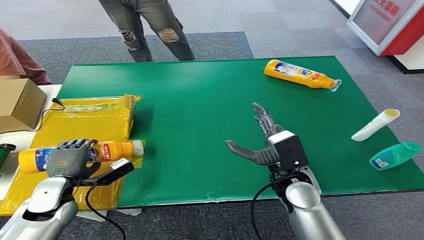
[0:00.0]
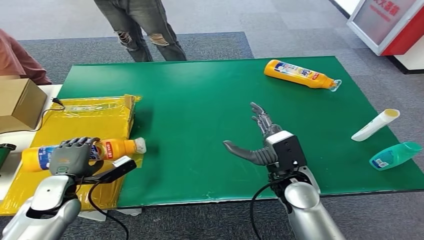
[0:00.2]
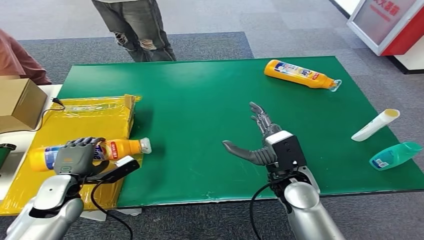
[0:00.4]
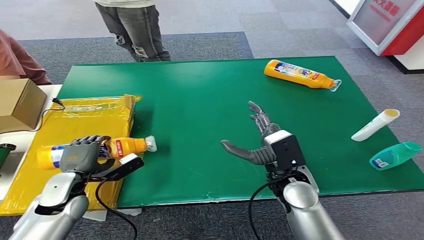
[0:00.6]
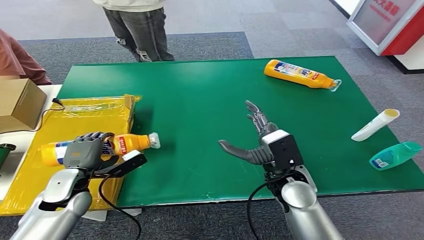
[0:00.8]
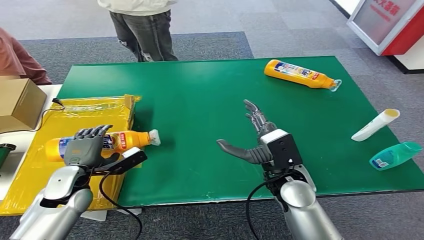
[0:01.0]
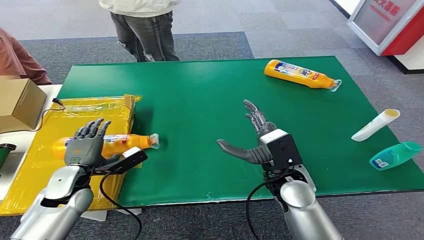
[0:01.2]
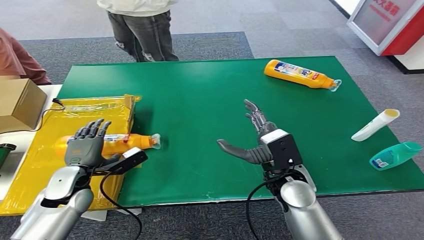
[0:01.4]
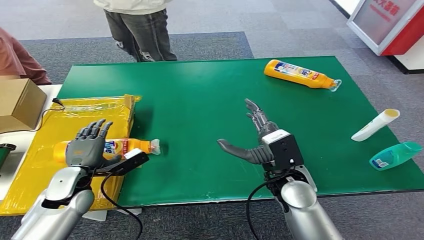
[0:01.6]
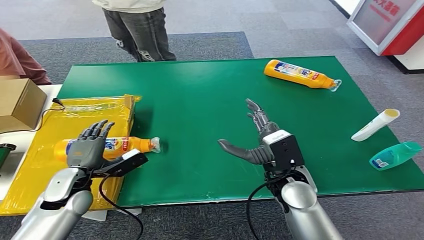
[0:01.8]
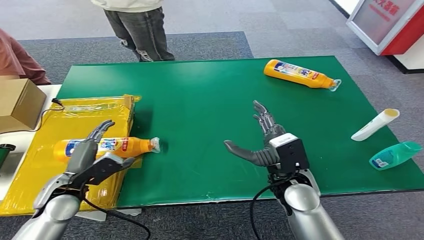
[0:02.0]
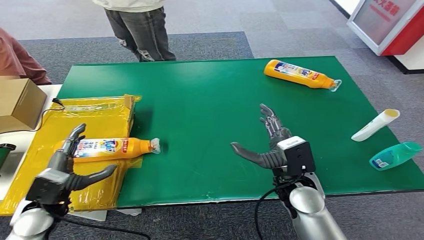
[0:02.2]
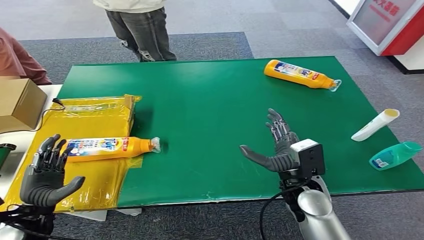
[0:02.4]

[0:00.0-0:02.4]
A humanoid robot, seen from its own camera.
Step, 0:00.0 to 0:02.4: Turn the bottle to the front side.
0:00.0 to 0:01.2: The hands move only a little.
0:01.2 to 0:02.4: The left hand goes roughly 10 cm backward and to the left.

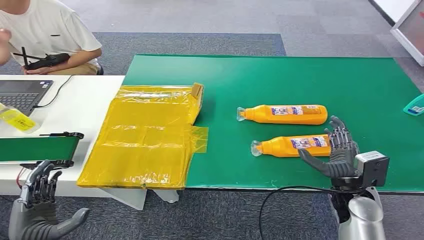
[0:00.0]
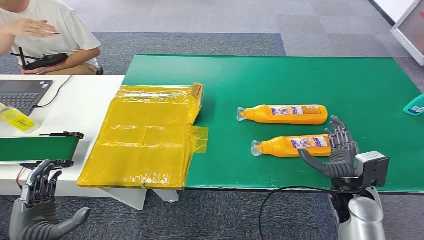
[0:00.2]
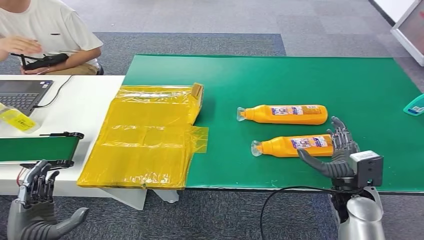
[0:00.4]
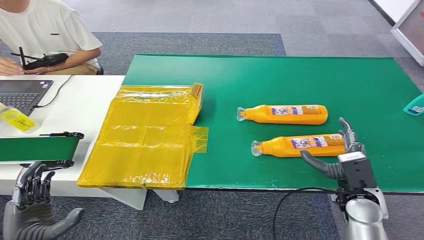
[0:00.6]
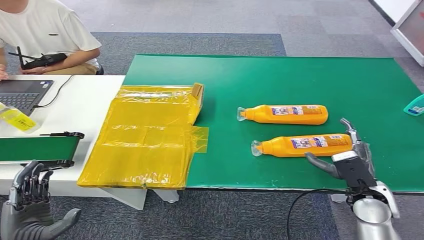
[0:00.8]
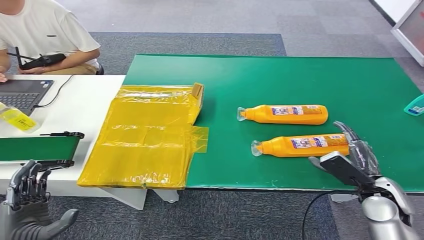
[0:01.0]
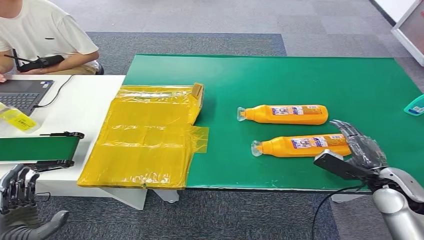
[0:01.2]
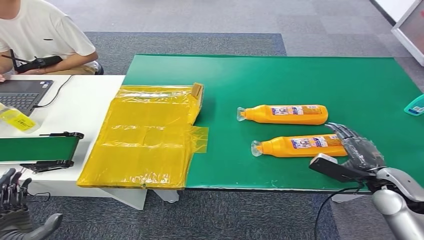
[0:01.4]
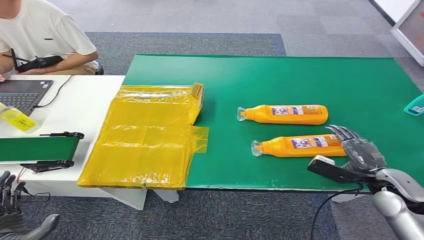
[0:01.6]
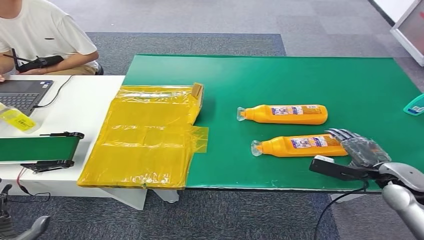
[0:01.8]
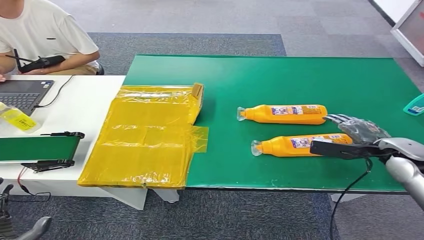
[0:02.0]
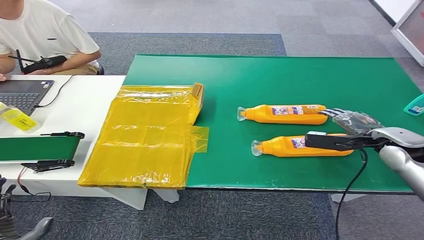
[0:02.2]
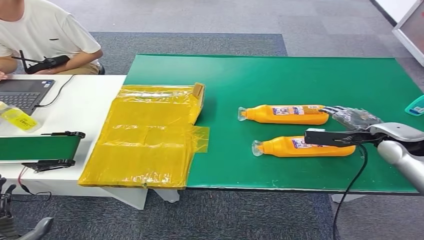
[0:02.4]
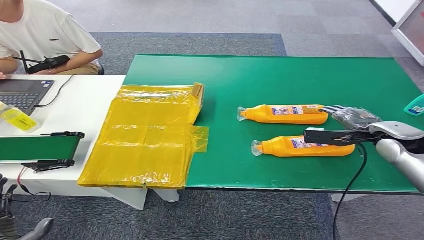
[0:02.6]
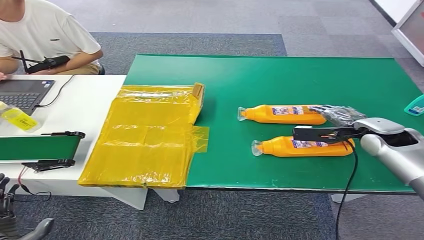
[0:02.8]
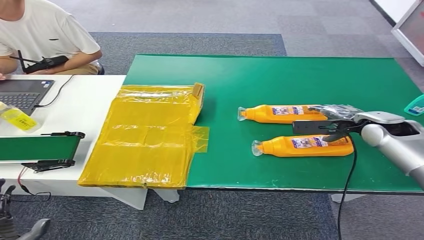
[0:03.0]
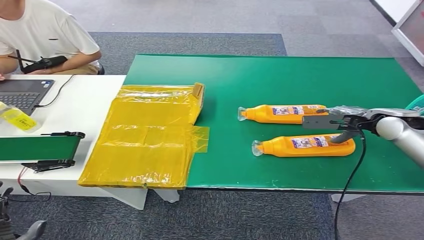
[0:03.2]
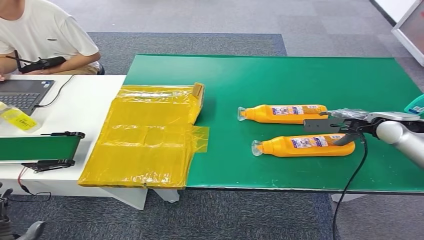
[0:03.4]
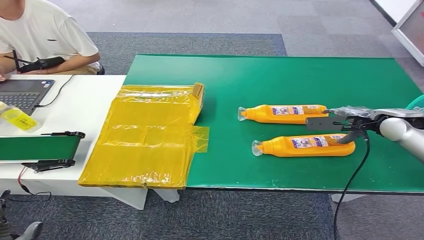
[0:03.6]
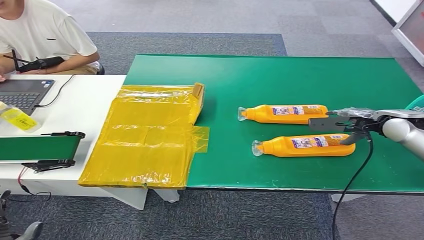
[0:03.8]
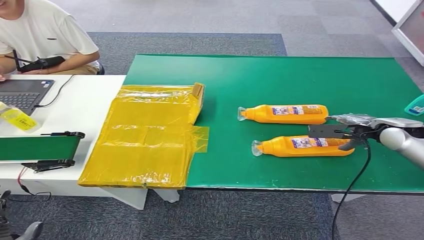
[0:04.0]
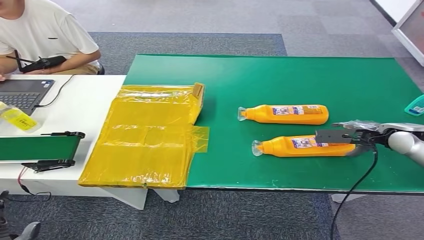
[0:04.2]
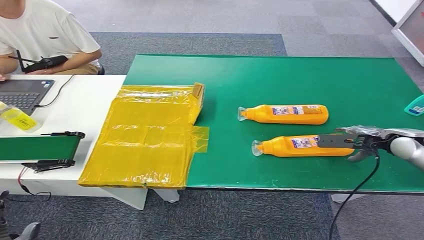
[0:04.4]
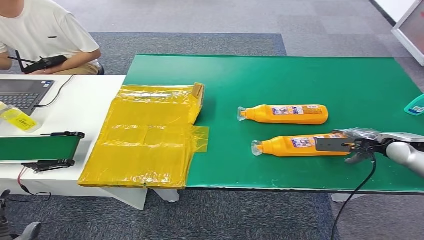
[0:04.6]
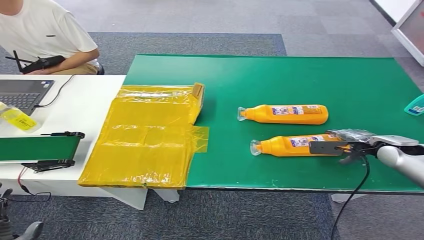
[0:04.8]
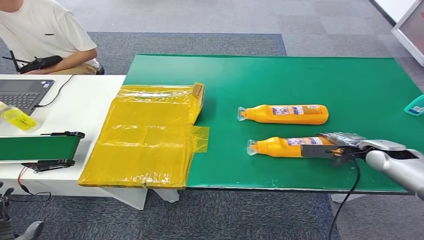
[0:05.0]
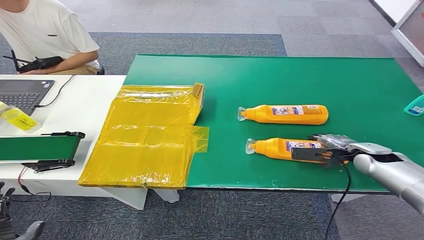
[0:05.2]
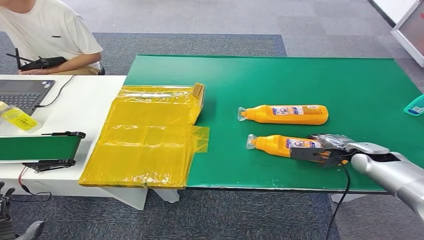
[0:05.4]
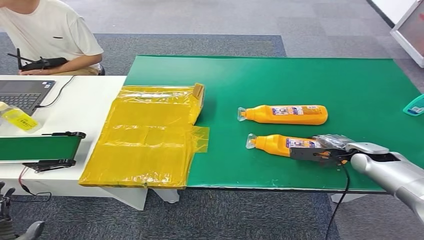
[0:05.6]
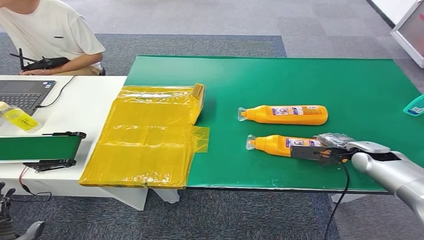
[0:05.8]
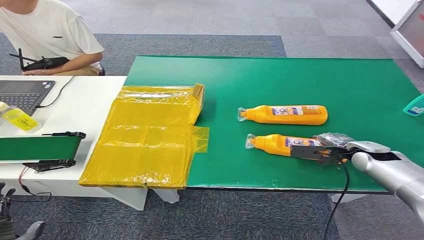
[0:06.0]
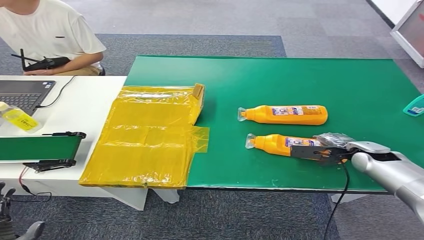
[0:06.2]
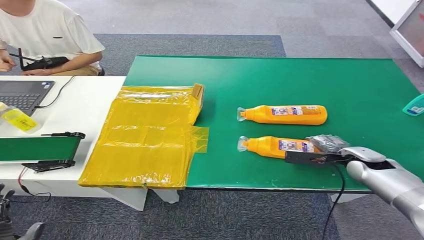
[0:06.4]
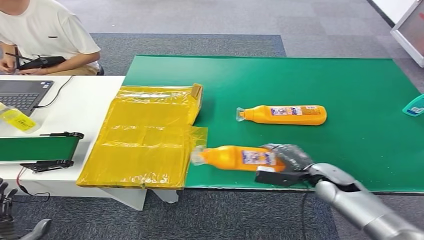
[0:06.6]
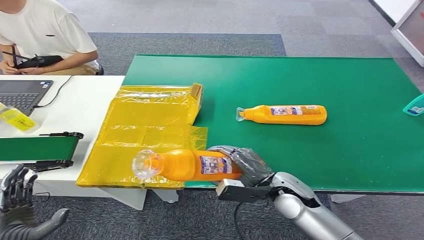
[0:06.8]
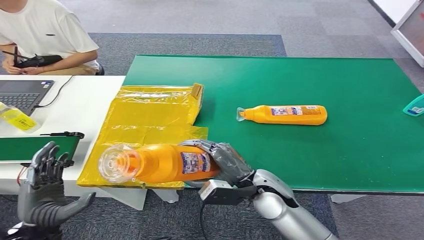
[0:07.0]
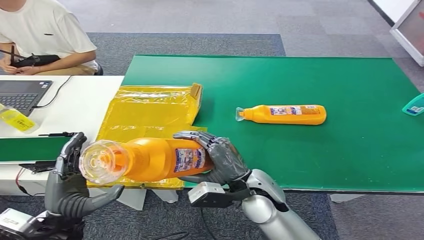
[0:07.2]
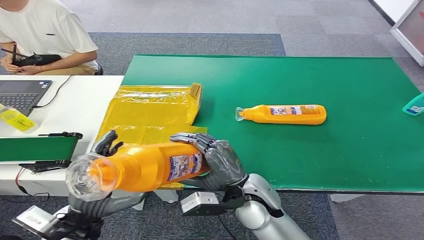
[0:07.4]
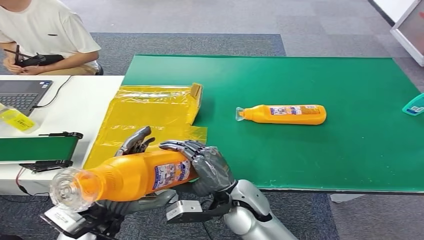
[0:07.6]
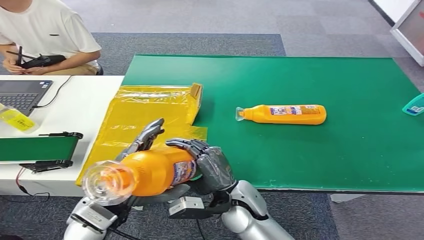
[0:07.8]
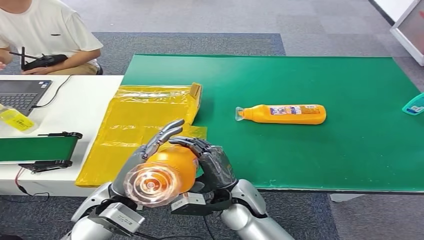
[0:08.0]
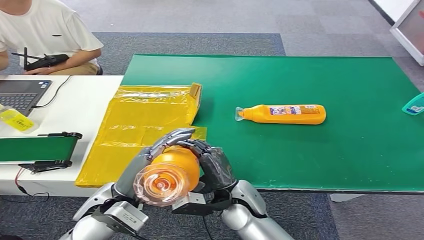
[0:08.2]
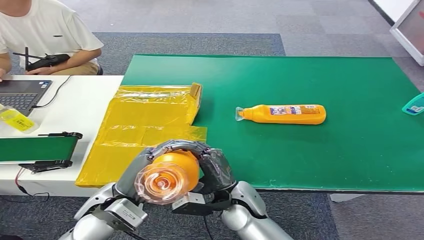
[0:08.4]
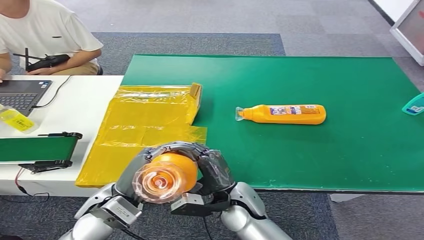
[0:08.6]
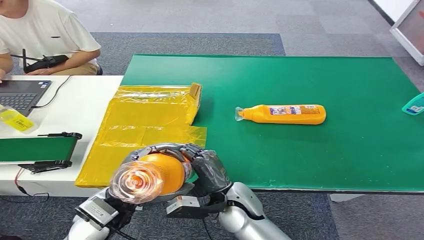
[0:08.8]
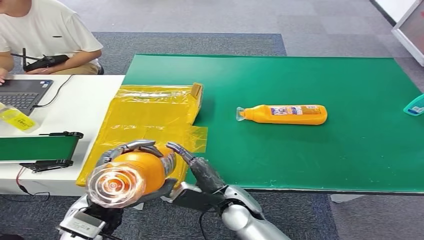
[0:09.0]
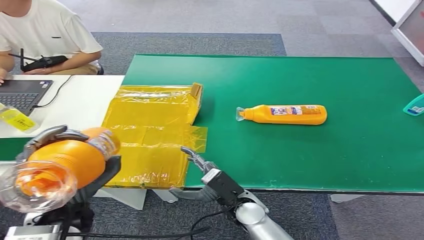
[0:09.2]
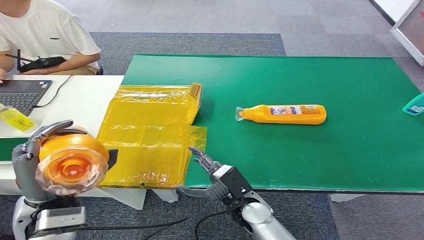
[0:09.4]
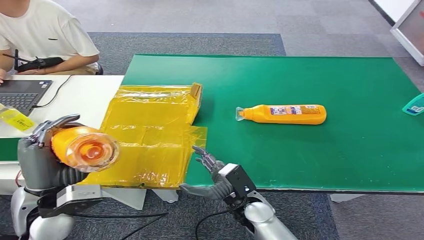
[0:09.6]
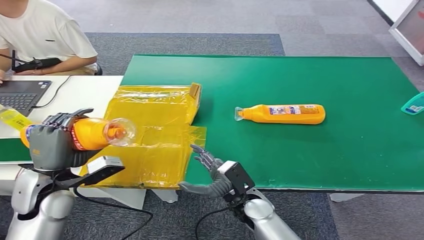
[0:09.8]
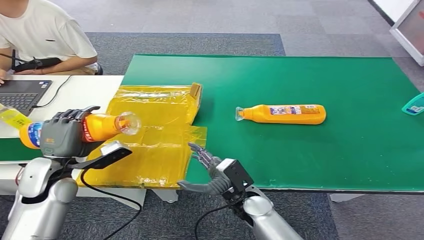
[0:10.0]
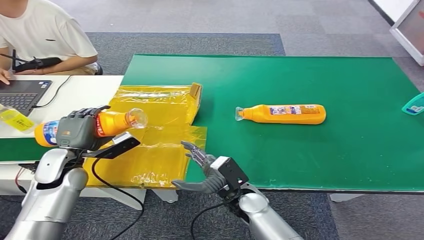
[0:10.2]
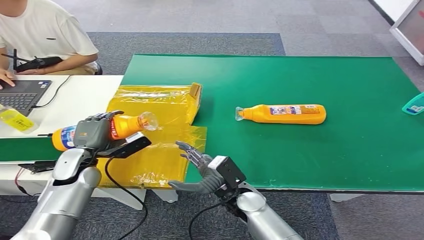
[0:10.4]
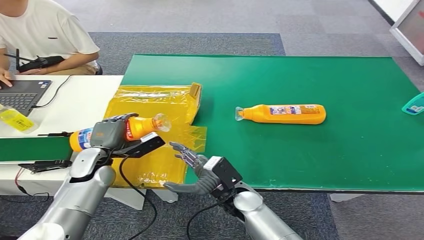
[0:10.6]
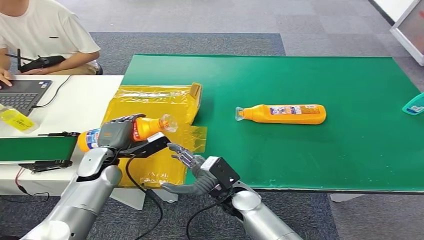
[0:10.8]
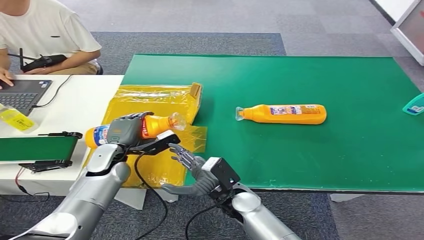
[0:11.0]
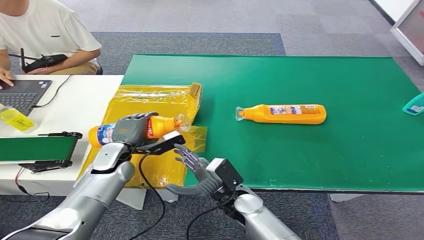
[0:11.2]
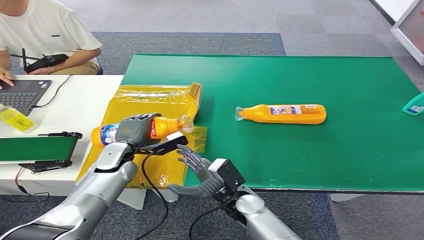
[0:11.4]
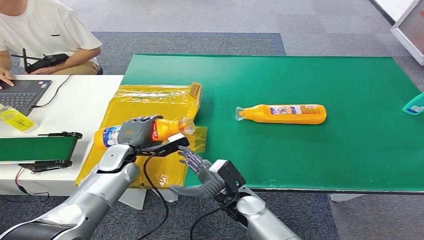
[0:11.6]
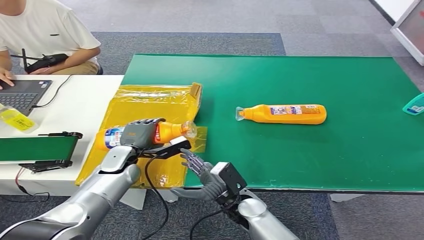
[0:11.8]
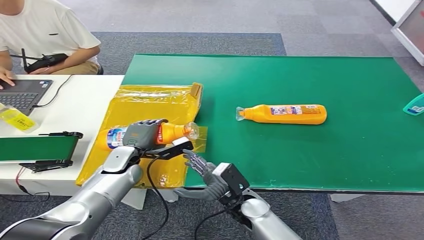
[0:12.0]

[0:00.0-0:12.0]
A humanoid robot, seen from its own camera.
Step, 0:00.0 to 0:07.0: Pick up the bottle from the table.
0:01.6 to 0:03.0: The right hand is displaced forward and upward by approximately 20 cm.
0:03.0 to 0:04.4: The right hand travels to the right by approximately 5 cm.
0:04.4 to 0:06.0: The right hand moves downward, some 10 cm.
0:07.6 to 0:09.0: The right hand changes place by about 5 cm.
0:10.4 to 0:12.0: The left hand heads to the right, covering approximately 10 cm.

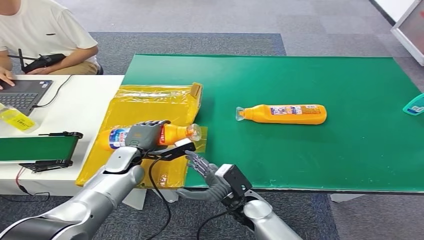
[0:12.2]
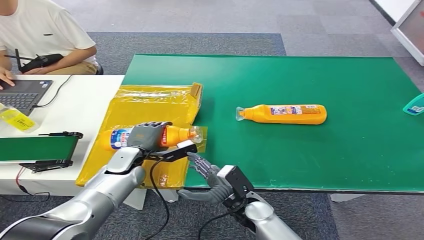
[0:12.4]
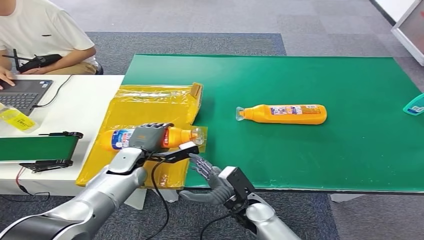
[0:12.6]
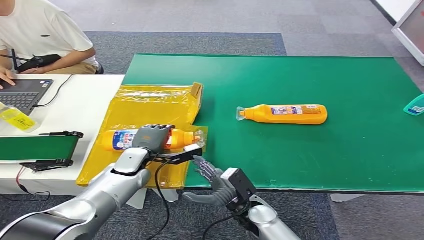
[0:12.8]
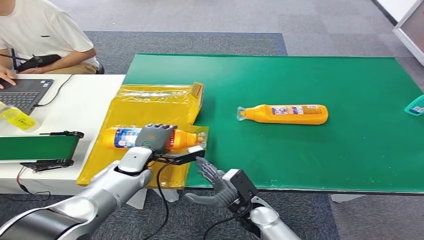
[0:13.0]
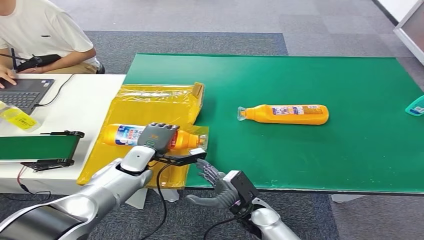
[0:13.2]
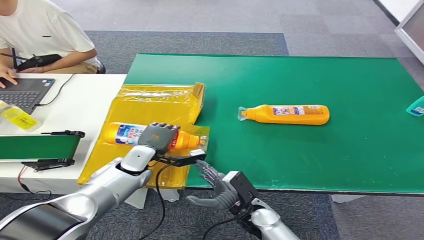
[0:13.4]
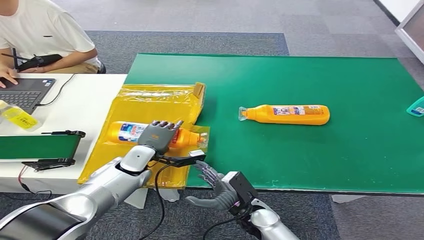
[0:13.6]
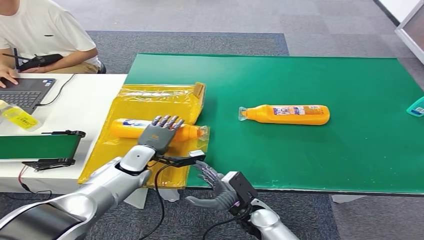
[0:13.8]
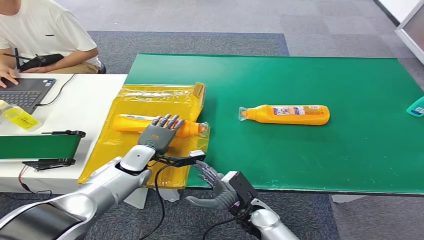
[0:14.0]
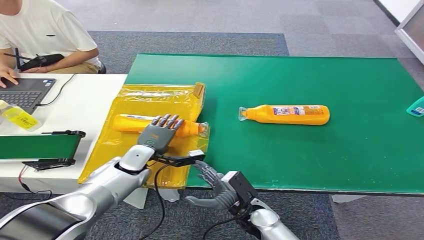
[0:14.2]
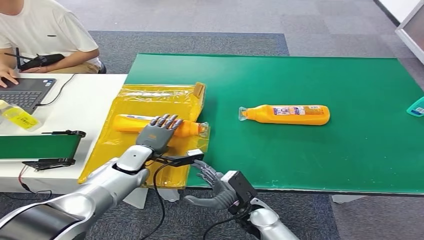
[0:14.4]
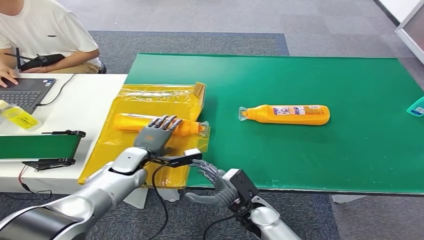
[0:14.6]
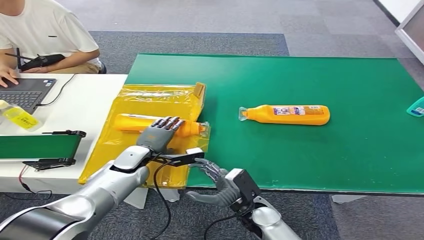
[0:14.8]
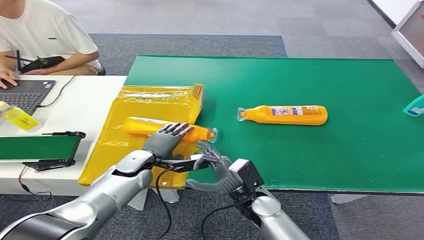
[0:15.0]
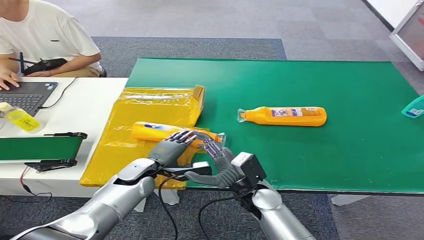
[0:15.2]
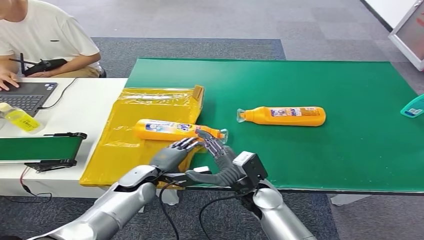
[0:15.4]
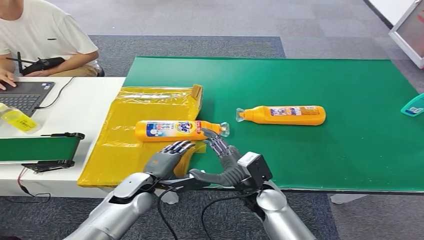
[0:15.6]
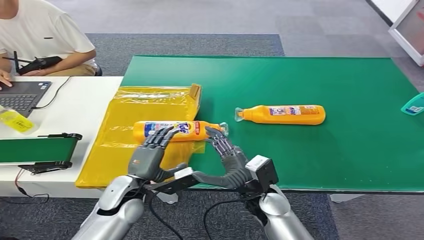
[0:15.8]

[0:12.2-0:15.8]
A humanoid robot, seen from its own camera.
Step, 0:12.2 to 0:15.6: Turn the bottle to the front side.
